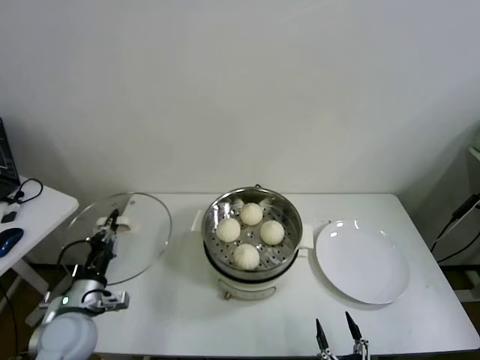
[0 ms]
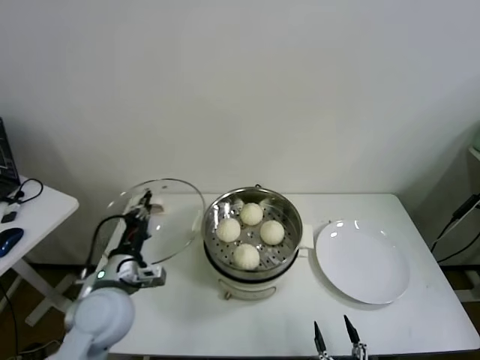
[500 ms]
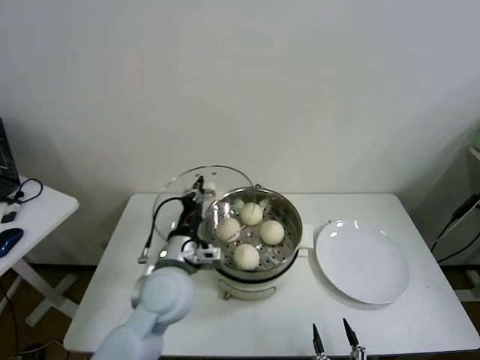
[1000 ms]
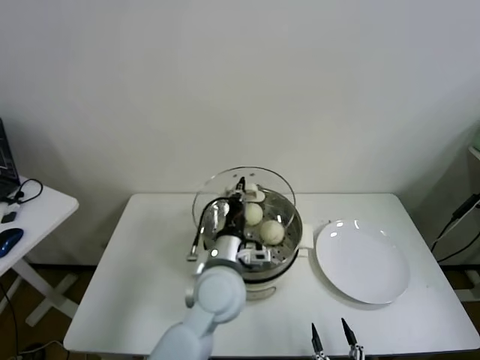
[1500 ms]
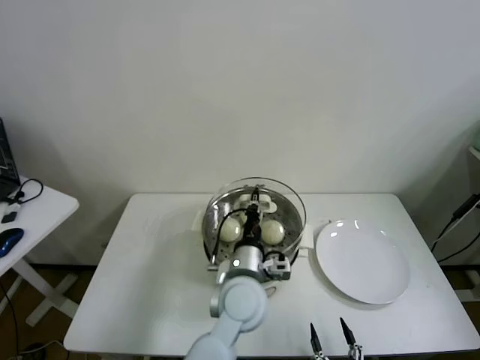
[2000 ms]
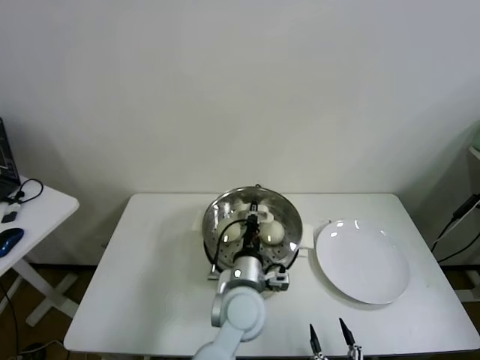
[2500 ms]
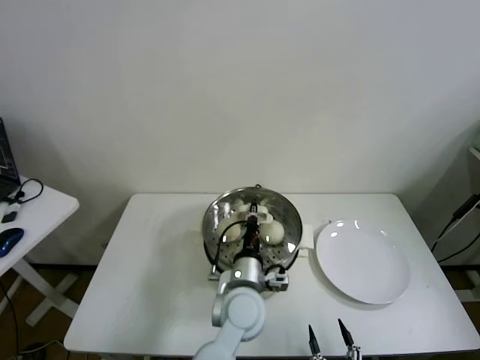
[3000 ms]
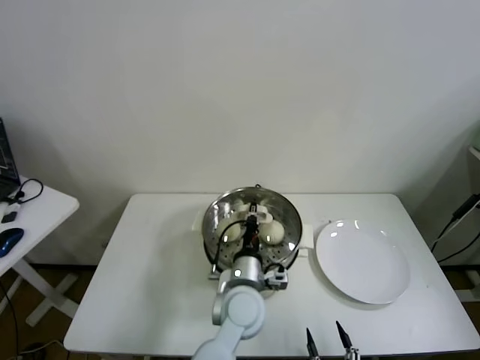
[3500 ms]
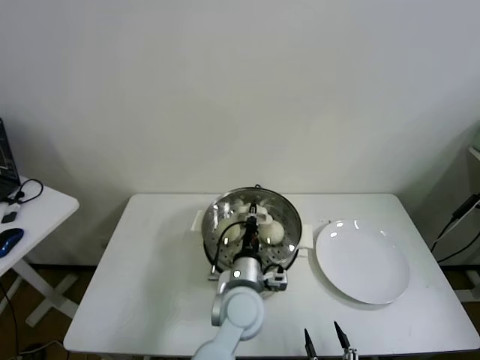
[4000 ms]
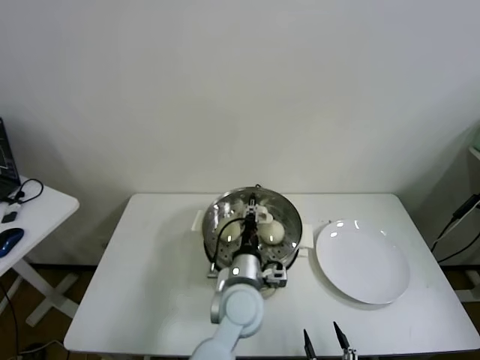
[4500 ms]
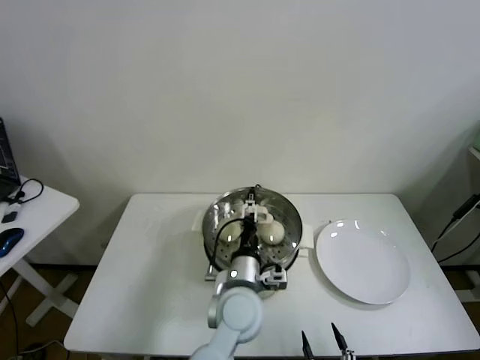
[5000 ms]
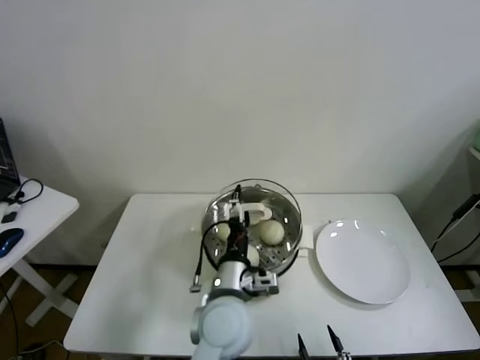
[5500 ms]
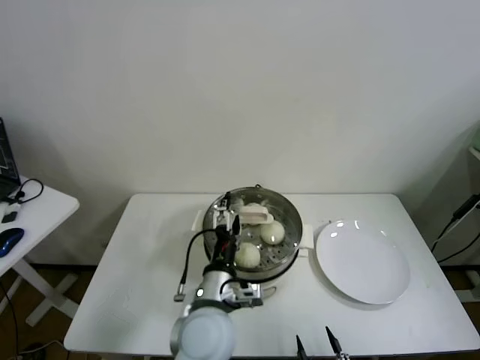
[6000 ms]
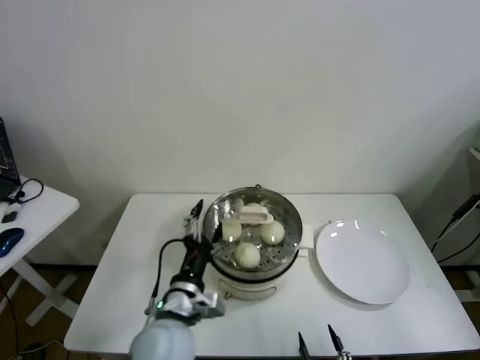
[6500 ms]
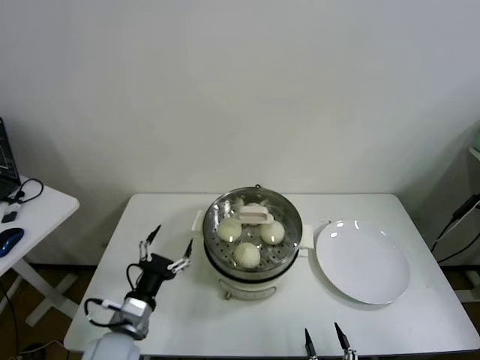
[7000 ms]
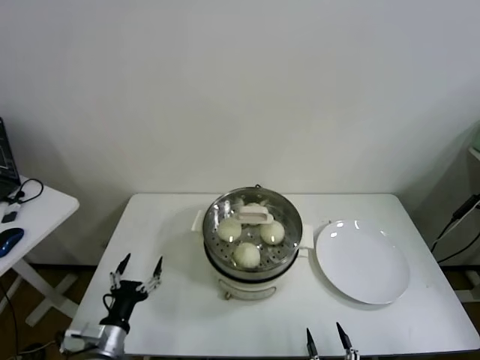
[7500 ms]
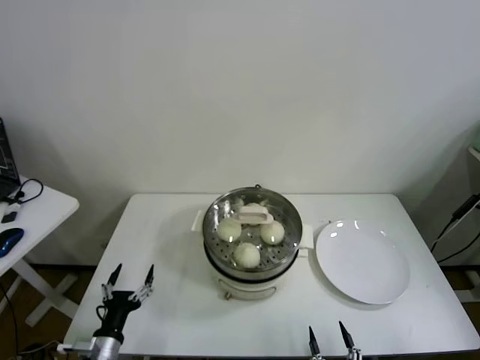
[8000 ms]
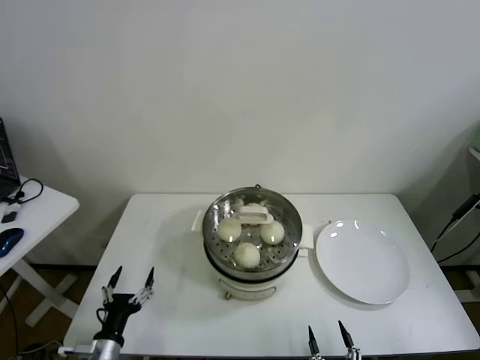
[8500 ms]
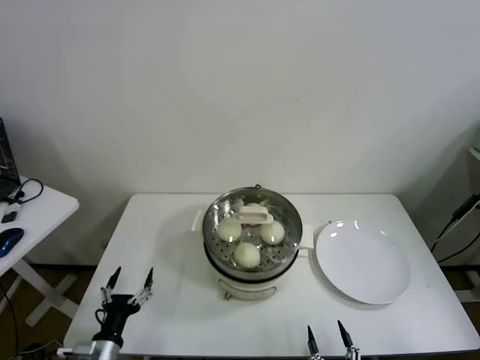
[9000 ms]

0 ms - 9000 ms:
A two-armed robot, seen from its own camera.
Task of the whole recording: take steamed baozi put them in steamer.
Step, 0 ms - 5000 ms: Place the pot lid on the steamer with left gripper.
0 ms - 2000 ms: The left gripper travels to the right by about 35 cm.
2000 ms - 4500 ms: There are only small adjustments of the grippers.
4500 ms - 7000 ms: The left gripper shifts some 25 cm to the left, and opens its fingers.
7000 ms - 9000 ms: The left gripper travels downward, to the left and backward by approximately 15 cm.

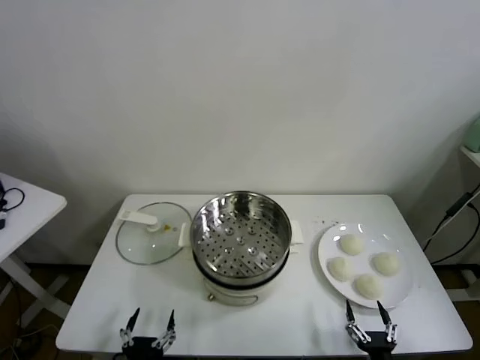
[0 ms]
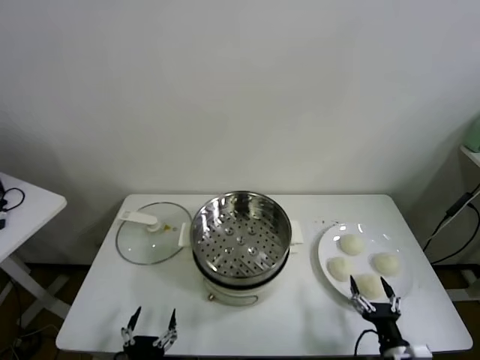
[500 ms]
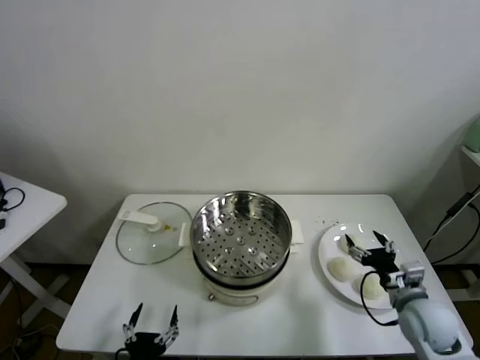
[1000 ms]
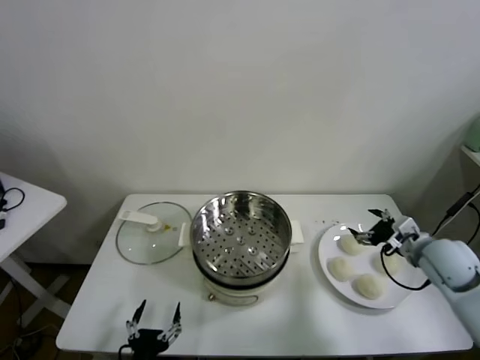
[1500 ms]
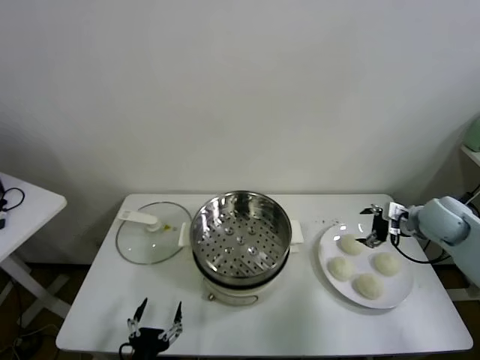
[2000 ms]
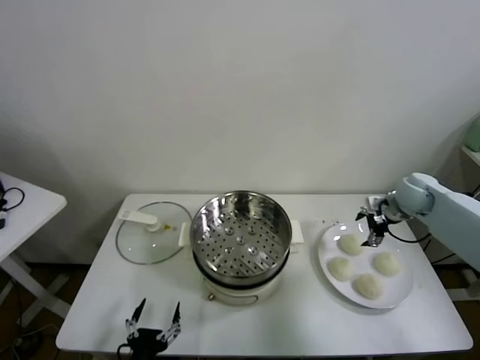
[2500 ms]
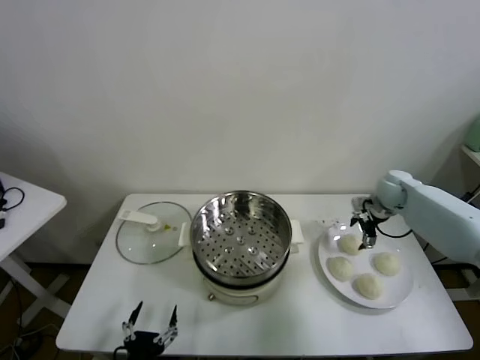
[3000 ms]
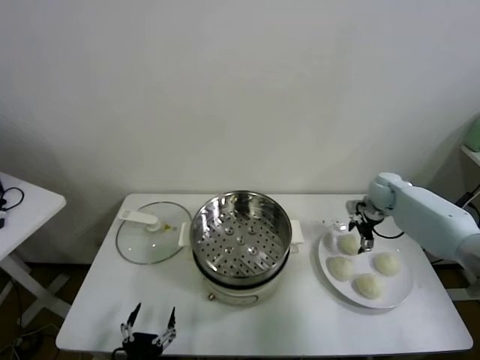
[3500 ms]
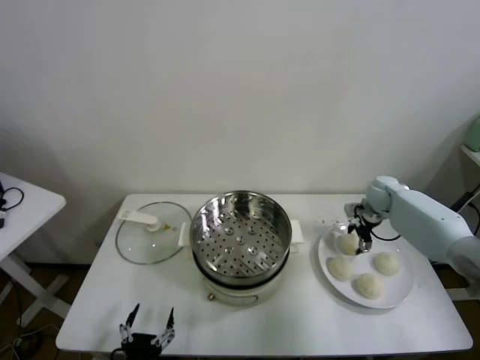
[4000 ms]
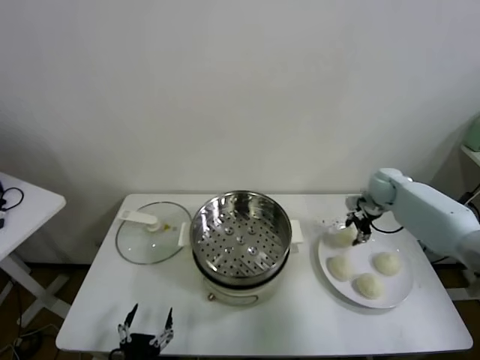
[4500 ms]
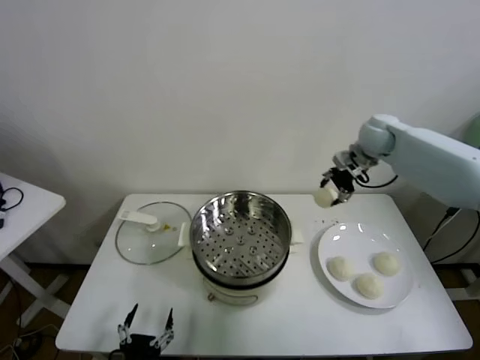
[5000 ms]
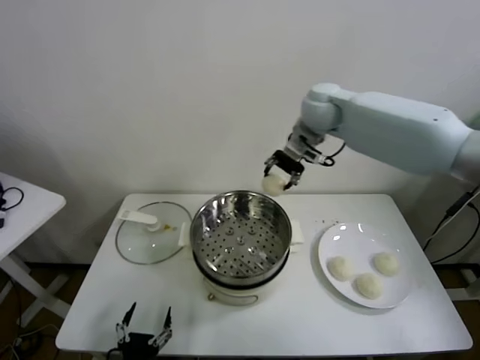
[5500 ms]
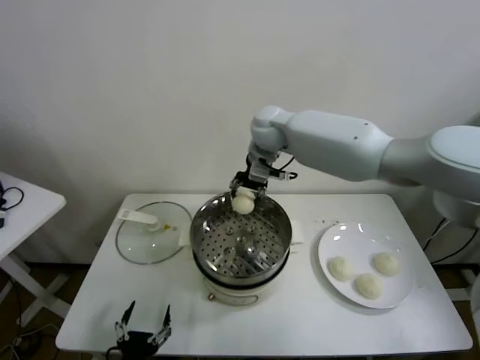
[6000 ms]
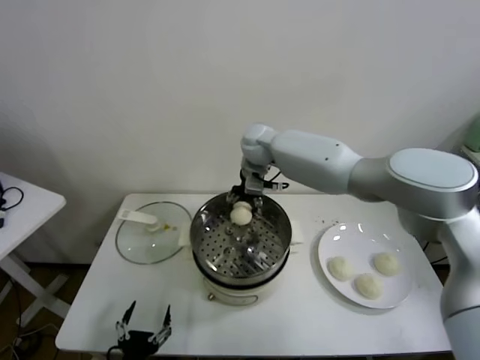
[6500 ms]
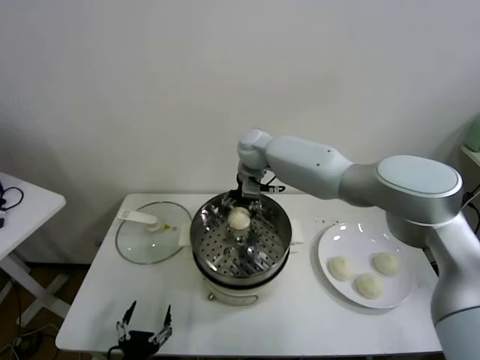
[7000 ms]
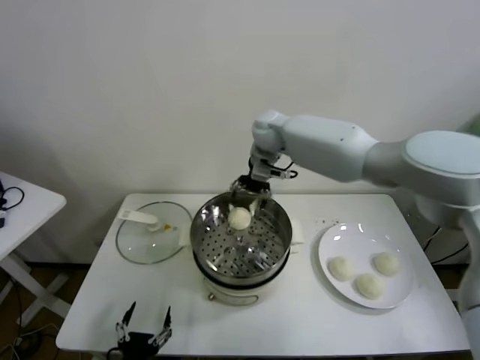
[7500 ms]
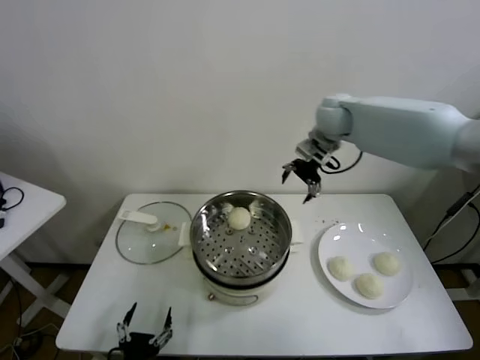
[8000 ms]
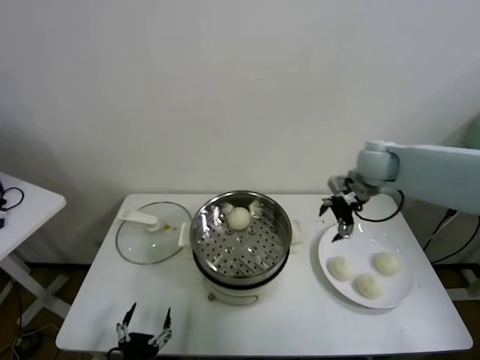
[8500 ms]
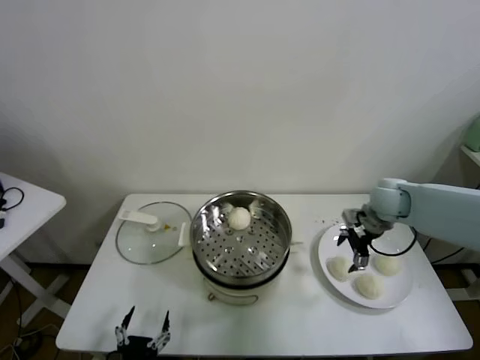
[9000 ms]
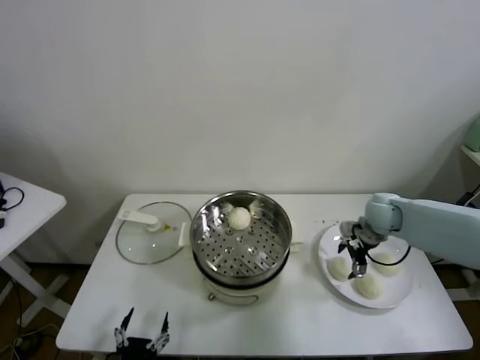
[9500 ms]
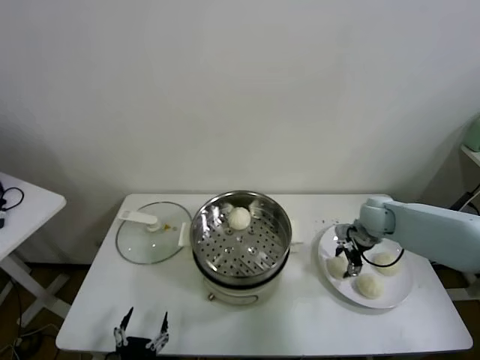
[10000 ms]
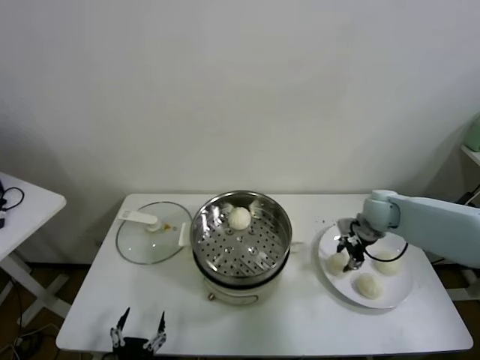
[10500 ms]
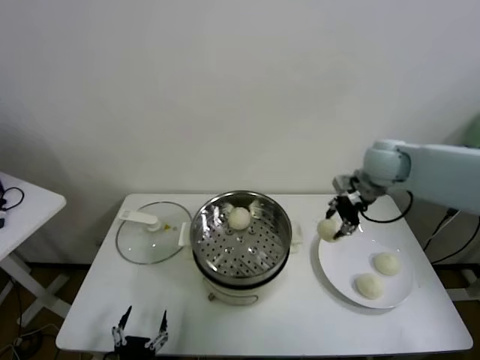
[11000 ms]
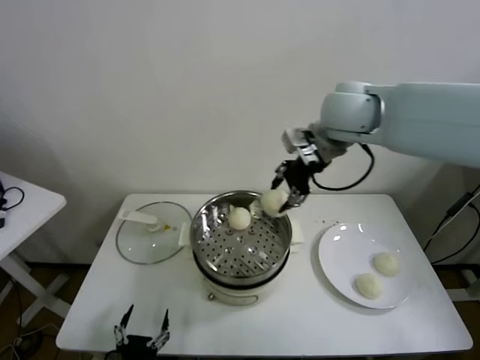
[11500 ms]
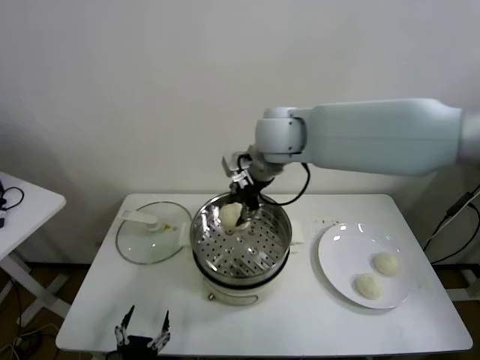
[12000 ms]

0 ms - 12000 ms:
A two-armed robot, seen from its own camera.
Task of the whole recording: take steamed baozi put them in steamer.
Step, 0 ms - 4000 ms: Grasp the baozi in the plate with right gripper.
Step, 4500 ms - 7000 ms: Place the baozi on the steamer with right gripper.
Step, 7500 ms - 10000 ms: Grasp the baozi in the plate with right gripper.
2000 ms - 4000 ms: The right gripper goes some 15 cm forward and downward.
4000 ms - 6000 ms: The right gripper goes approximately 40 cm to the left and upward.
6000 ms - 8000 ms: The right gripper is displaced to the right by approximately 20 cm, and opens.
8000 ms - 10000 ms: The right gripper heads downward, to the right and backward, covering some 25 cm, and closes.
10000 ms - 12000 ms: The right gripper moves to the left and upward, some 40 cm.

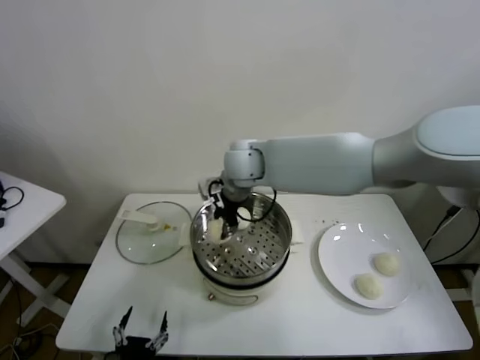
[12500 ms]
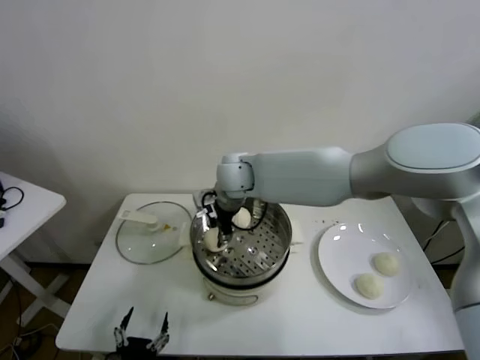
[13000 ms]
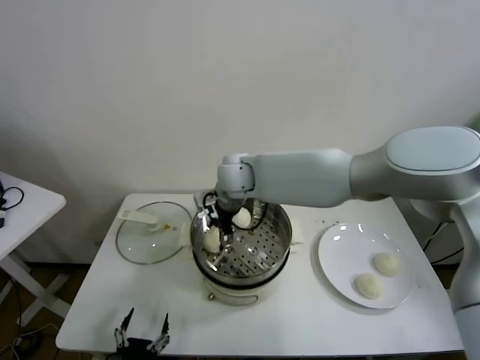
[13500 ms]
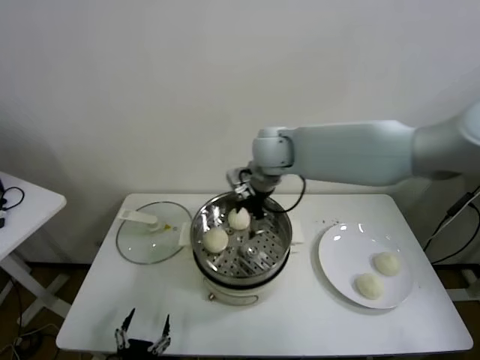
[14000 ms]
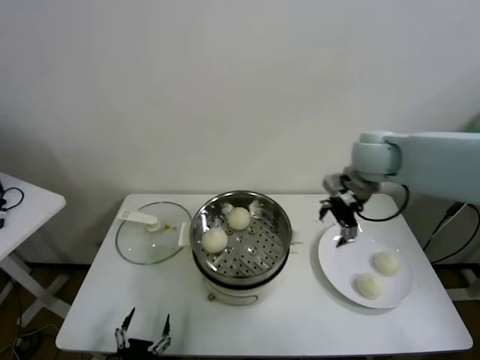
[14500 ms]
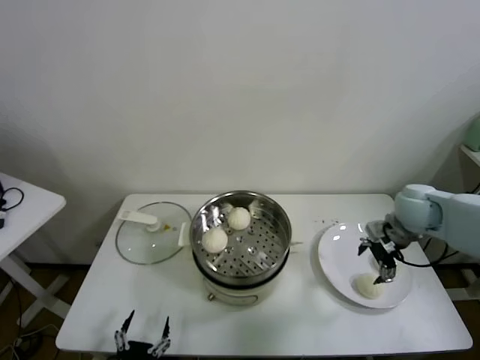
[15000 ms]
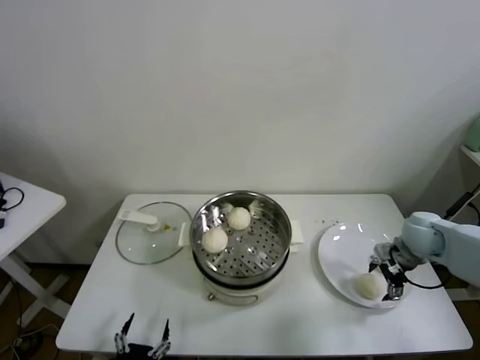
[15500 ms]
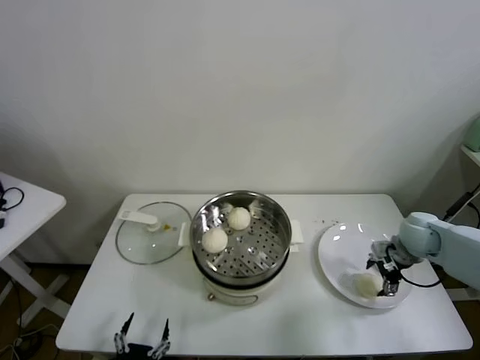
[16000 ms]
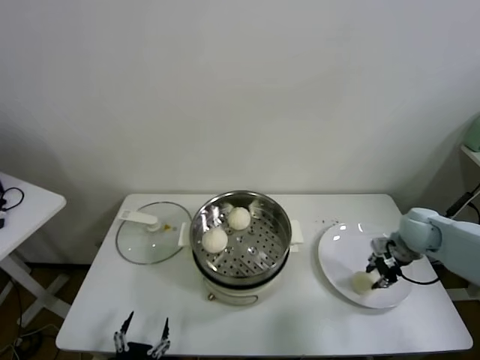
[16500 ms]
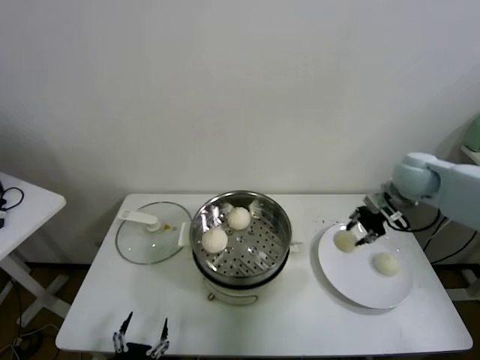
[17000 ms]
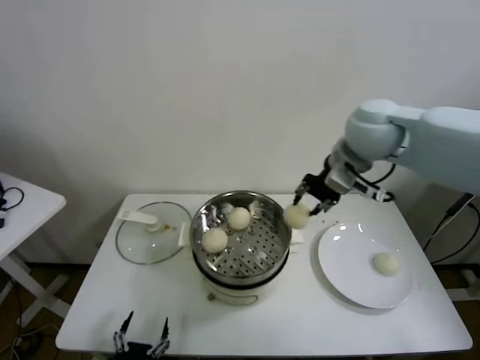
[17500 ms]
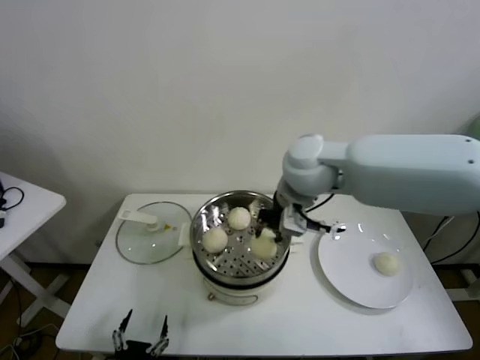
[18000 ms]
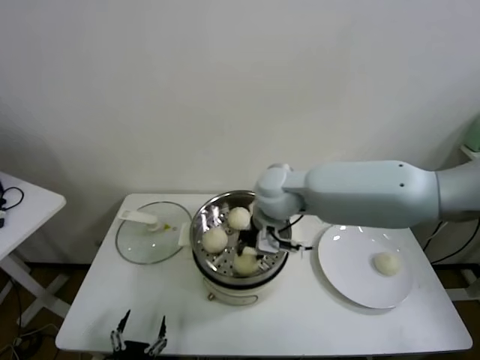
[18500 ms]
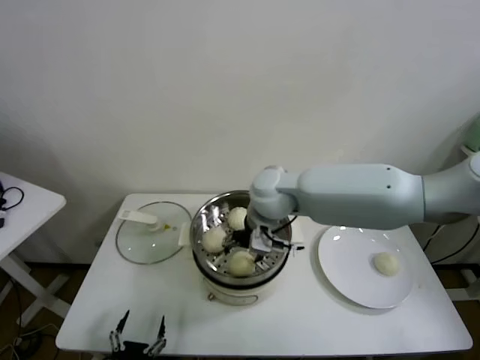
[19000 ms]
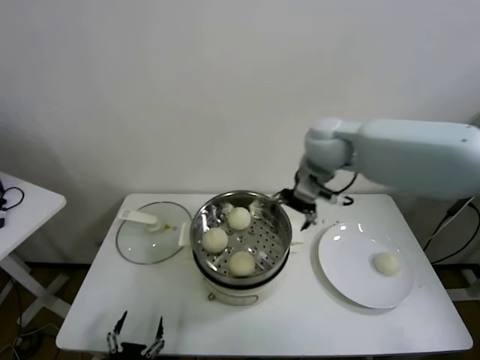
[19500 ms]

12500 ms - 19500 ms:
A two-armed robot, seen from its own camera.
Task of the whole recording: take steamed baozi put them in steamer.
Step, 14000 ms - 16000 ms: Grasp the baozi in the plate with right gripper.
Step, 16500 ms - 19000 ms: Place the baozi on the steamer with right gripper.
12500 ms - 14500 ms: The right gripper shifts approximately 30 cm to the right, and opens up.
14500 ms - 16000 ms: The right gripper goes about 25 cm downward and to the right.
16000 ms - 17500 ms: The right gripper heads upward and to the left, covering about 35 cm, and closes.
17500 ms - 19500 ms: The right gripper travels downward by about 5 cm, reaches about 15 cm to the left, then returns, and opens its fingers.
